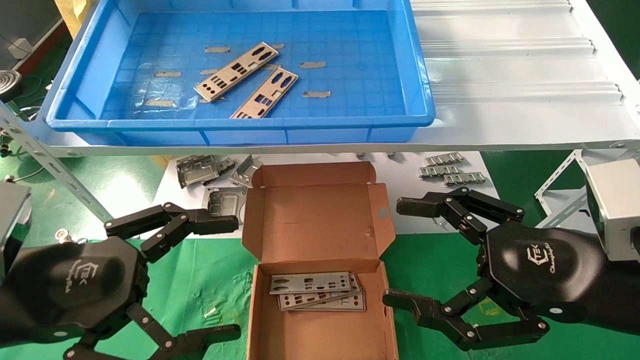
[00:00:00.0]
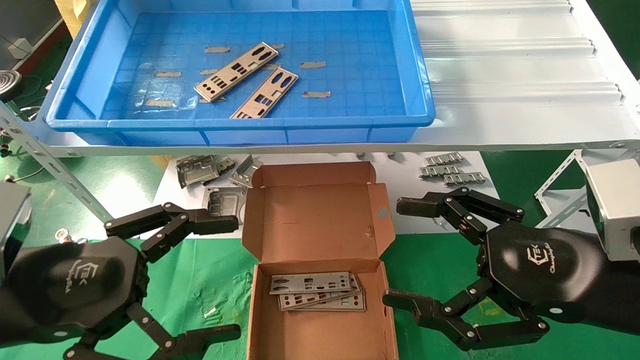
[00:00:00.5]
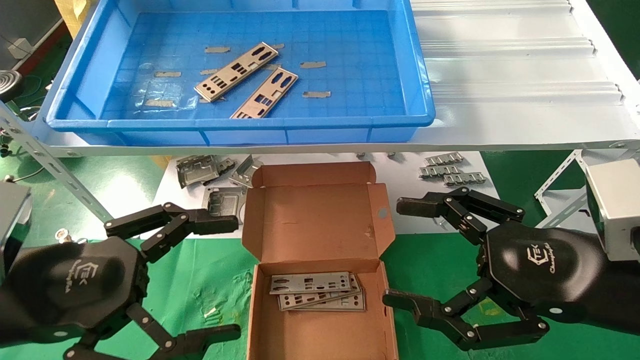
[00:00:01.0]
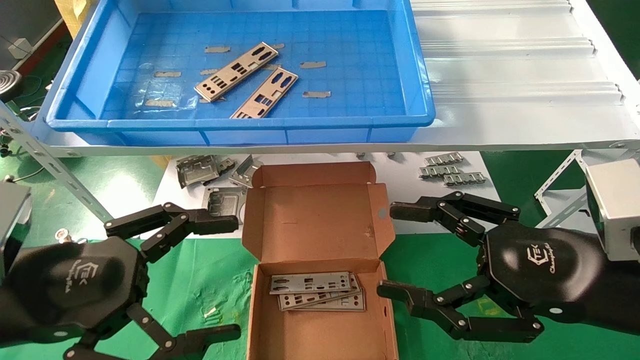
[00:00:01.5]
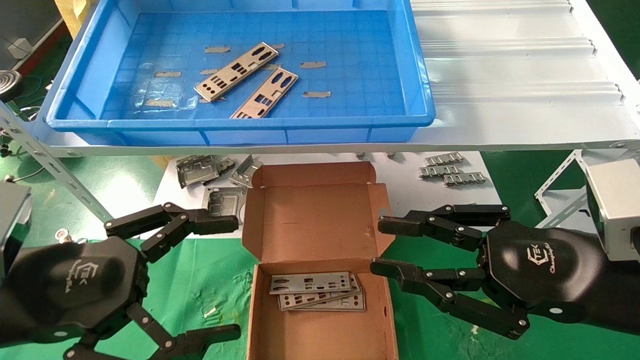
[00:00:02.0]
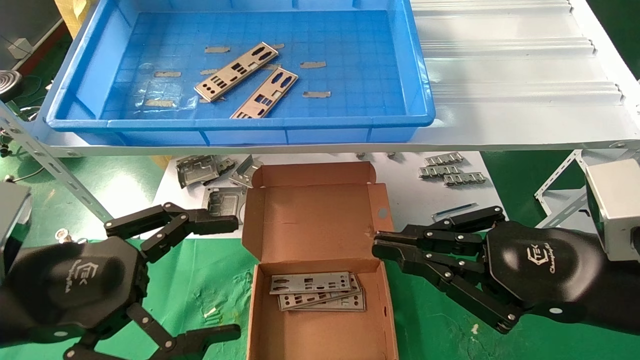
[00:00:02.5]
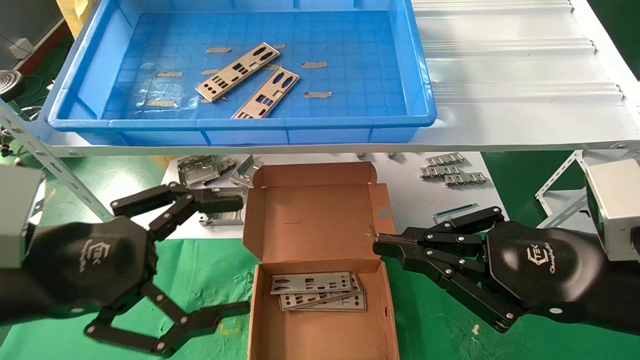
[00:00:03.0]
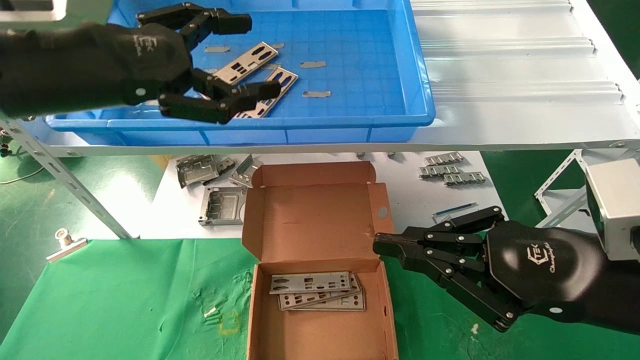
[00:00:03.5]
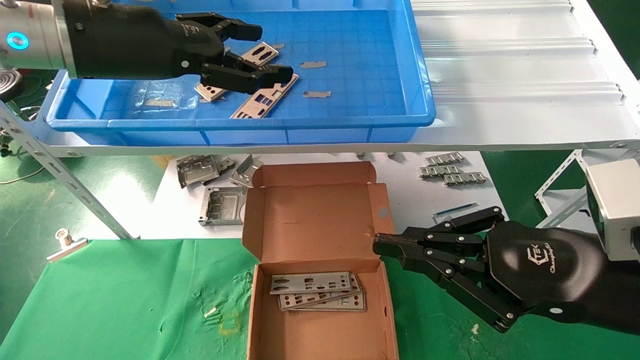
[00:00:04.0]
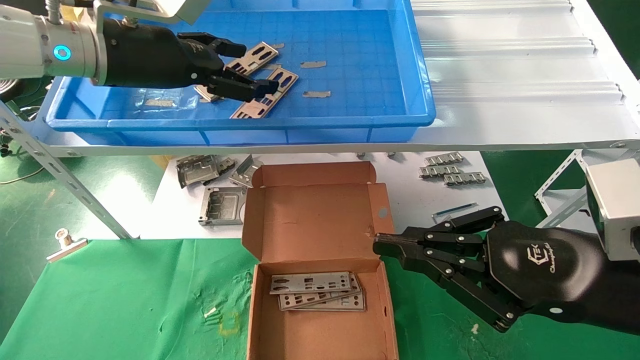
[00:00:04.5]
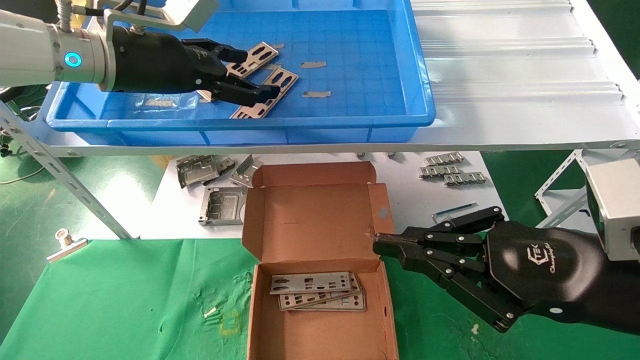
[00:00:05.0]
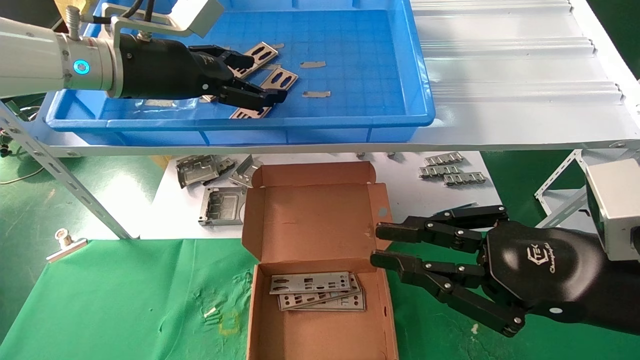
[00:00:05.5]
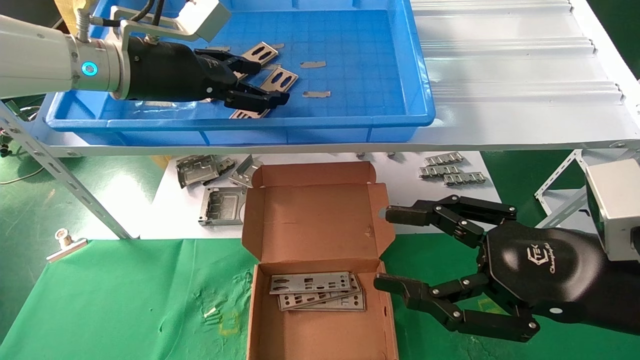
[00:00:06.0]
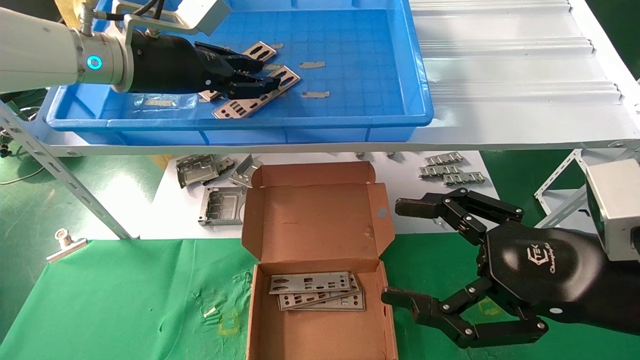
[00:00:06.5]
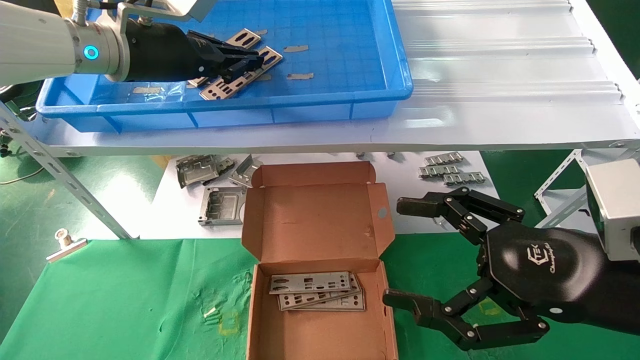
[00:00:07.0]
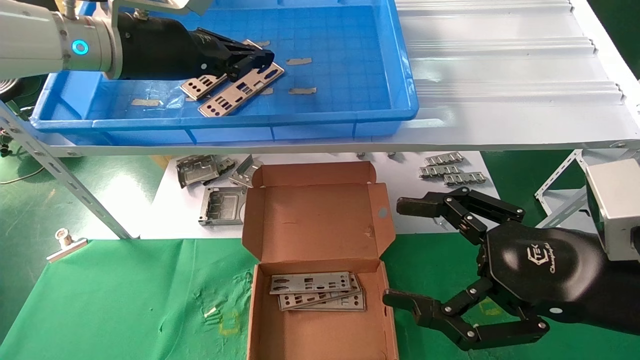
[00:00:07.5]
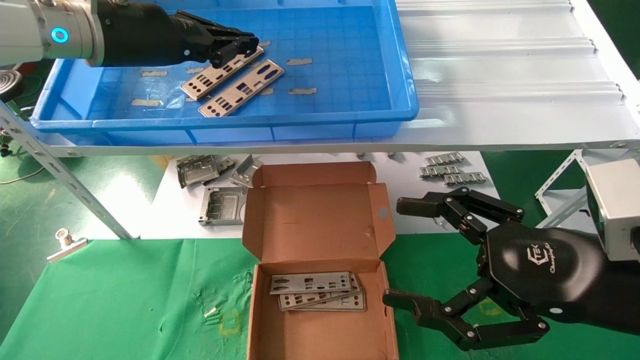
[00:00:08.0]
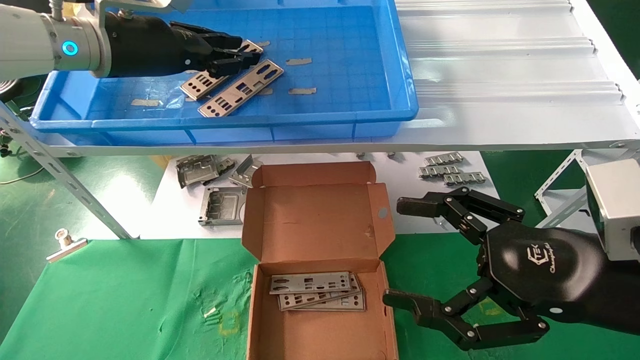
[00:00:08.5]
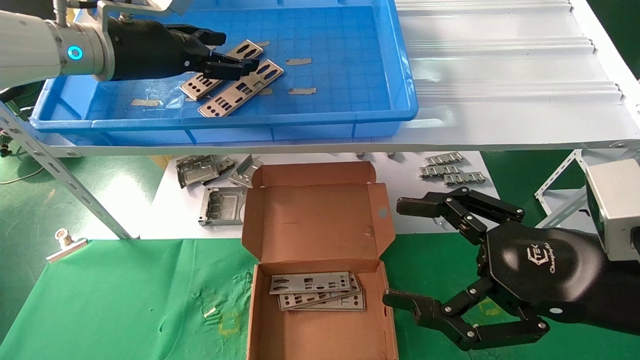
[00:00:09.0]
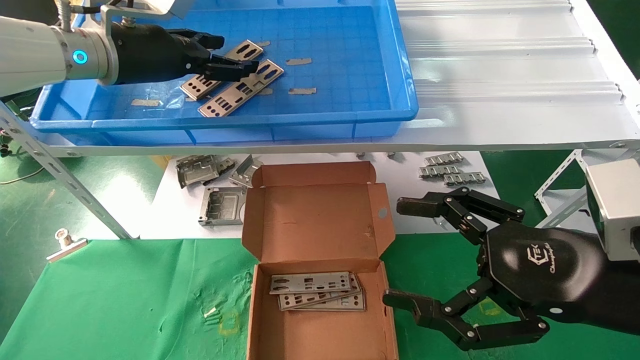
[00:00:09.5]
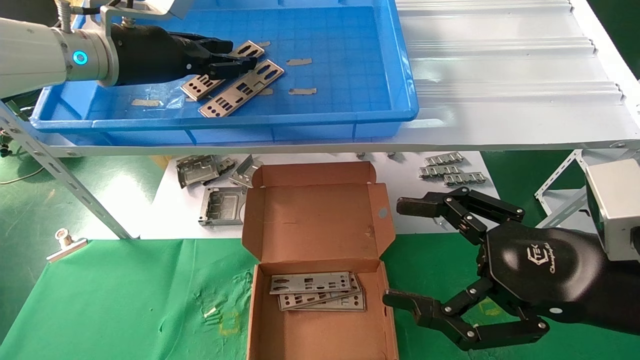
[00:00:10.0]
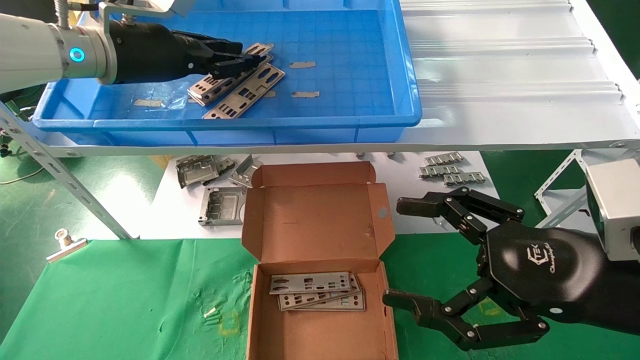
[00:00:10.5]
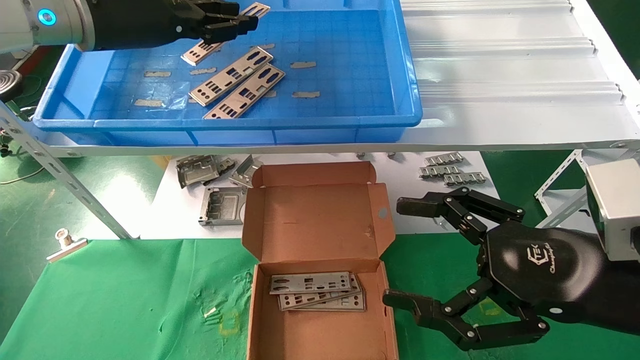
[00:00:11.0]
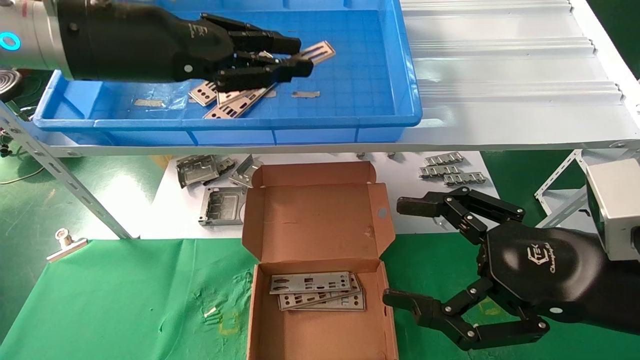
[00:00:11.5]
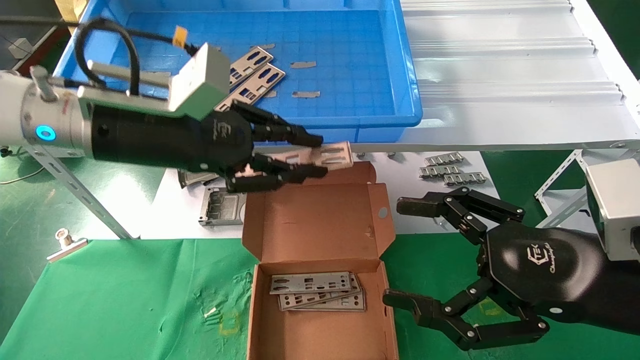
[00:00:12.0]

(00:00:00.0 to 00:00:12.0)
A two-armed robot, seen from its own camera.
Task of the whole recording: pick up the parts on the tray and put them in the cardboard box.
Step, 00:00:03.5 - 00:00:10.0: Pick up the IO bracket from the container box.
00:00:00.0 - 00:00:02.0: The right gripper closes up.
00:00:02.0 - 00:00:04.0: The left gripper shifts about 25 cm upward and forward. Meanwhile the right gripper closes.
00:00:04.0 - 00:00:06.0: The left gripper moves forward, about 5 cm. Meanwhile the right gripper opens up.
00:00:06.0 - 00:00:08.0: The left gripper closes. Meanwhile the right gripper opens its fingers.
00:00:08.0 - 00:00:10.0: The left gripper opens up.
00:00:10.0 - 00:00:12.0: The left gripper travels backward and downward by roughly 10 cm.

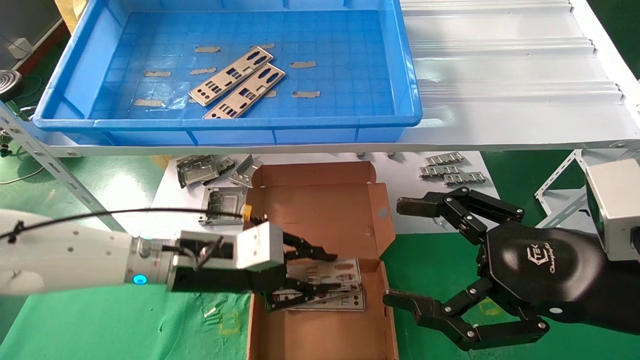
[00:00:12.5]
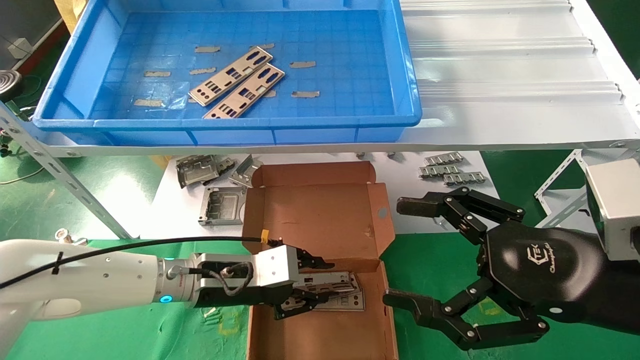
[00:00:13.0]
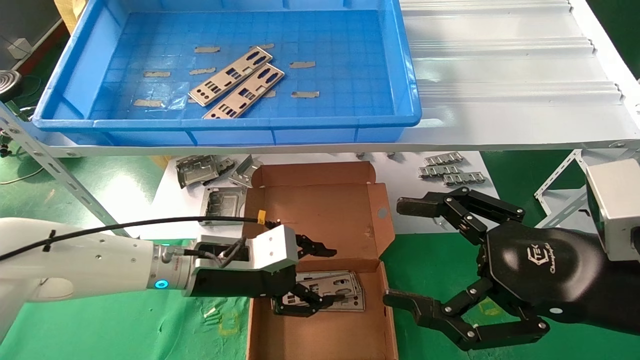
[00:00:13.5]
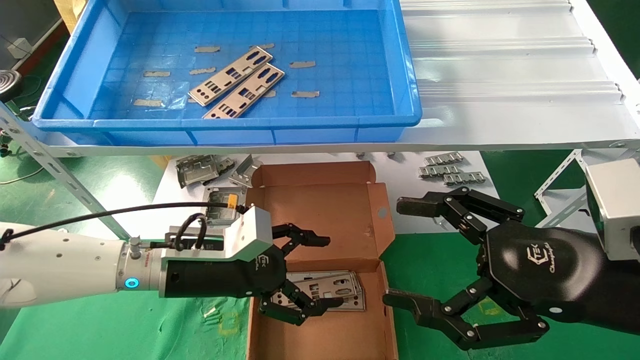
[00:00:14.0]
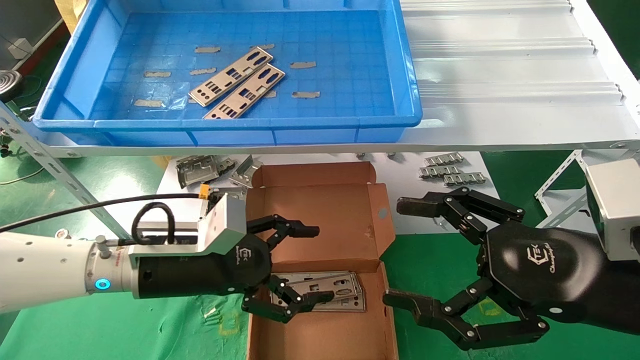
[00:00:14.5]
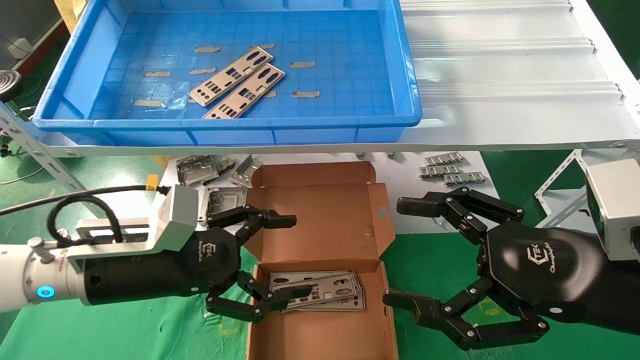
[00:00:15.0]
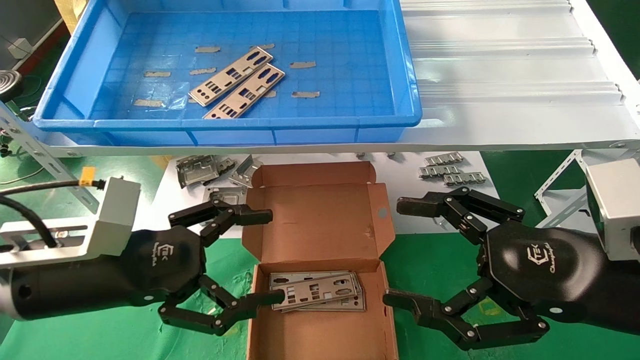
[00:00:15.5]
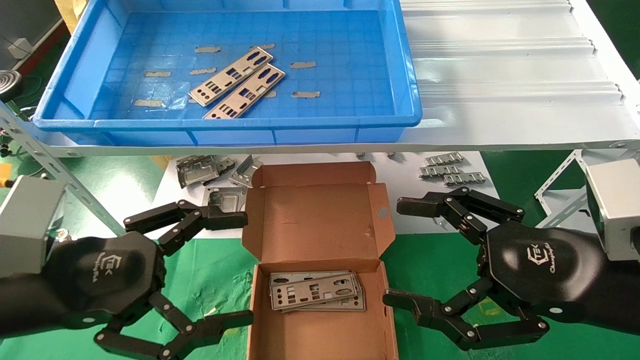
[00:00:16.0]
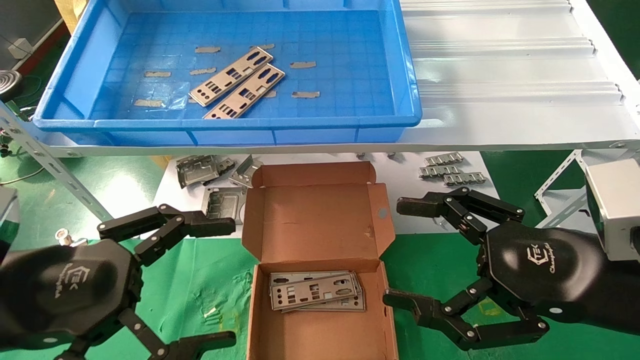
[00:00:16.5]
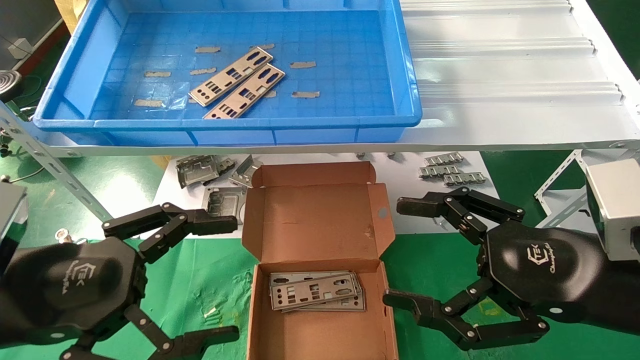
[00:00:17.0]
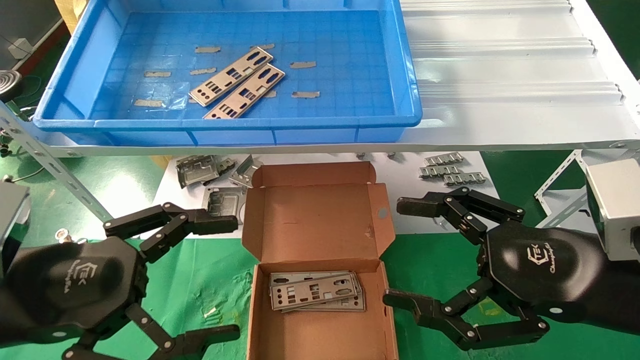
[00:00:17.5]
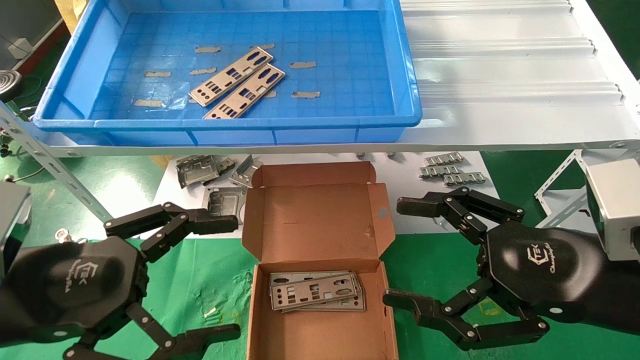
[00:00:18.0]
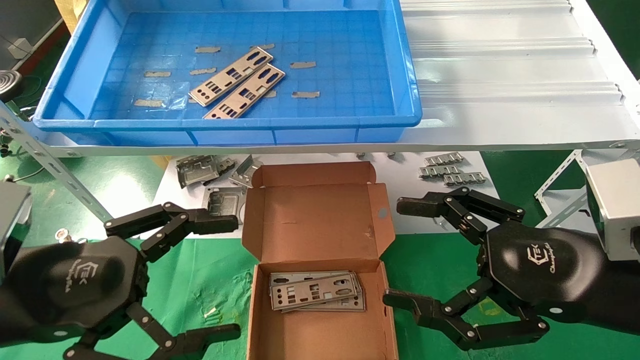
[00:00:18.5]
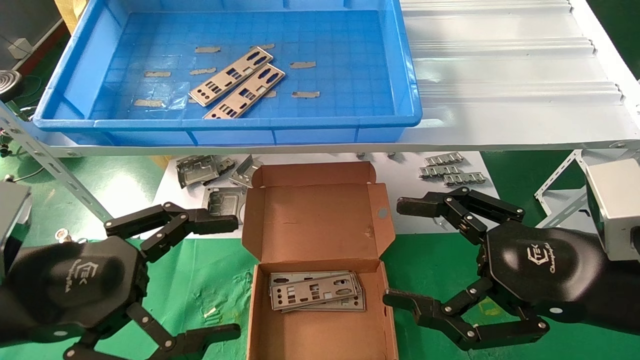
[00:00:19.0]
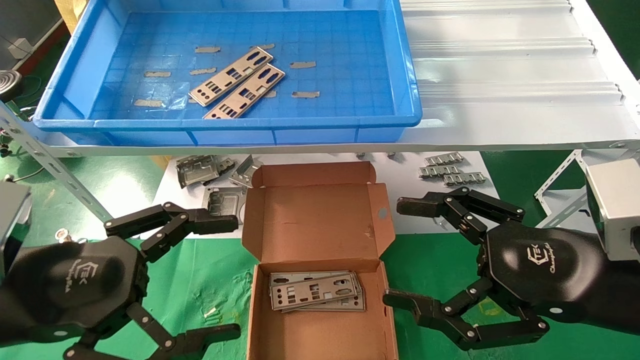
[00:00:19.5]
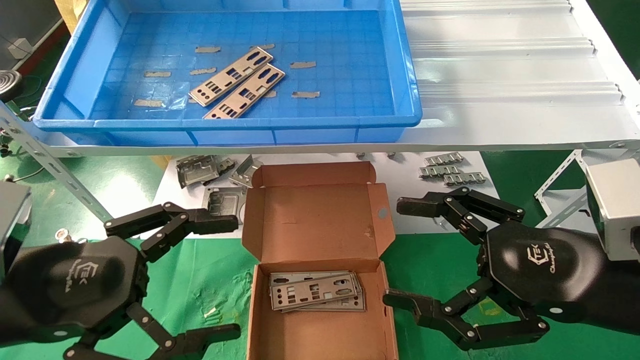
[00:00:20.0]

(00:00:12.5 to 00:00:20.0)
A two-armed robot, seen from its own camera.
Task of the whole recording: pick up the parts on the tray and put them in the cardboard box.
Step, 00:00:12.5 - 00:00:20.0: Place the IO bracket into the ingredient slot.
00:00:12.5 - 00:00:14.5: The left gripper opens up.
00:00:14.5 - 00:00:16.5: The left gripper goes roughly 20 cm backward, to the left and upward.
00:00:16.5 - 00:00:20.0: Both grippers stay about where they are.
